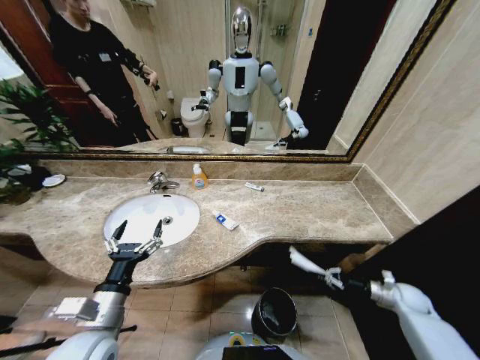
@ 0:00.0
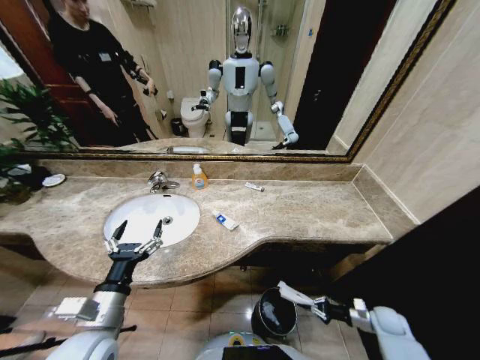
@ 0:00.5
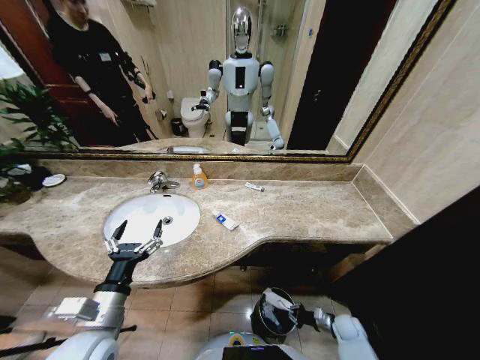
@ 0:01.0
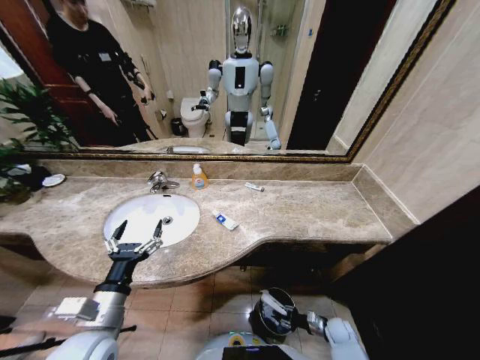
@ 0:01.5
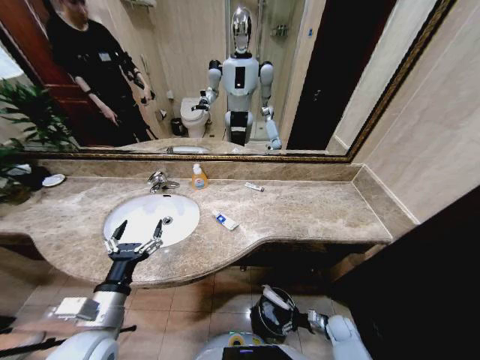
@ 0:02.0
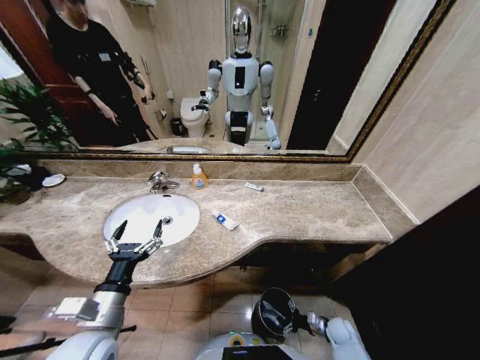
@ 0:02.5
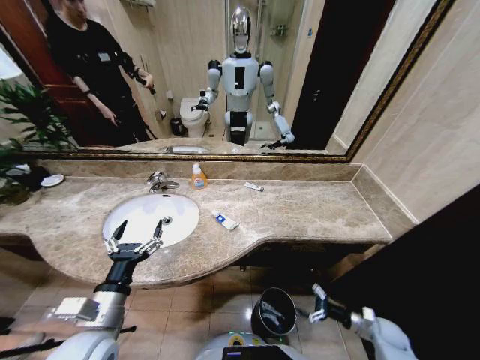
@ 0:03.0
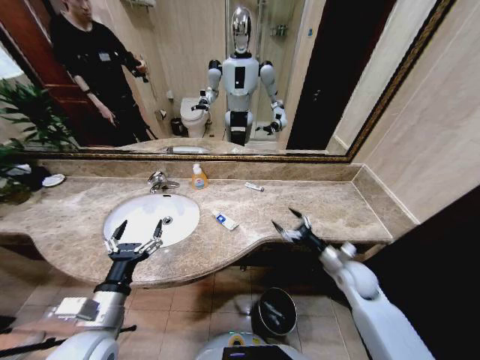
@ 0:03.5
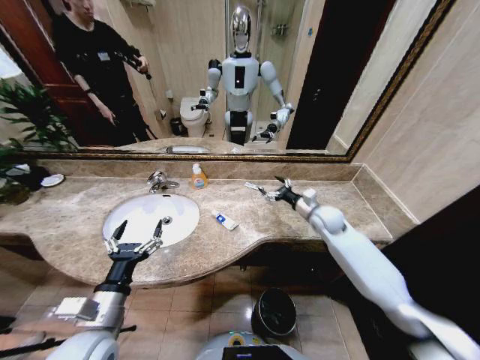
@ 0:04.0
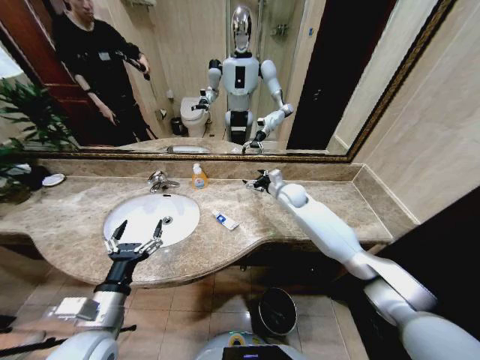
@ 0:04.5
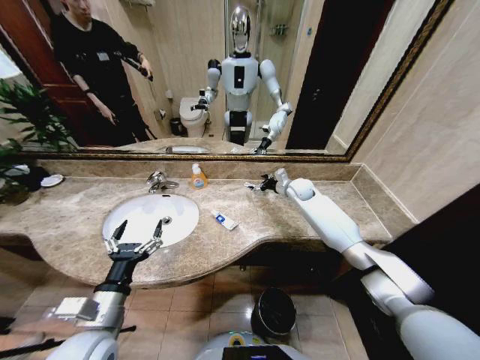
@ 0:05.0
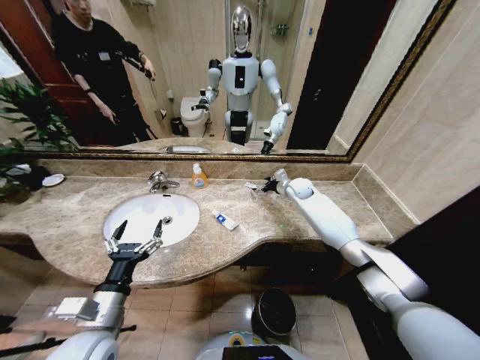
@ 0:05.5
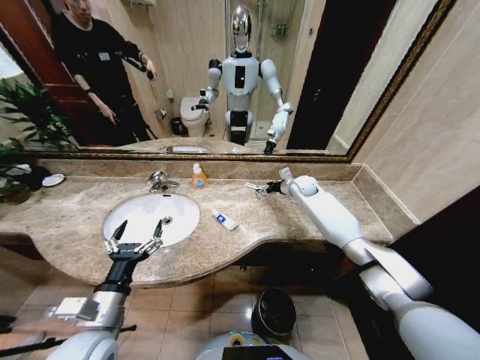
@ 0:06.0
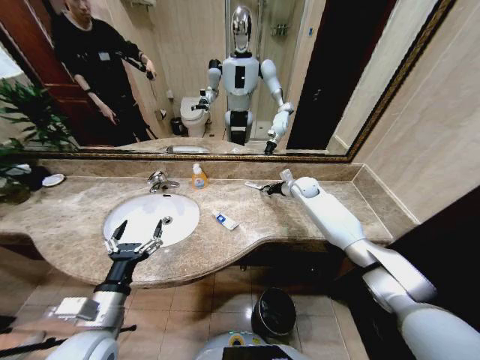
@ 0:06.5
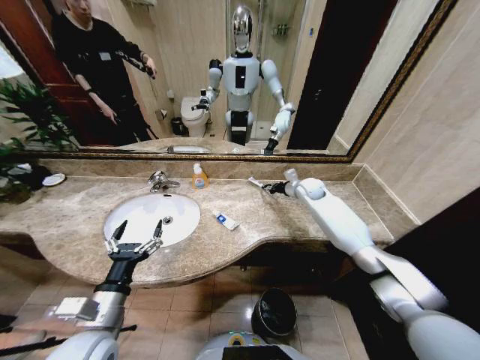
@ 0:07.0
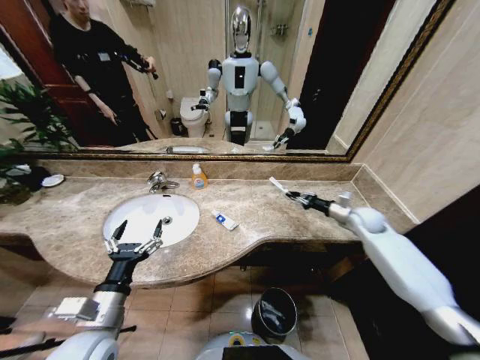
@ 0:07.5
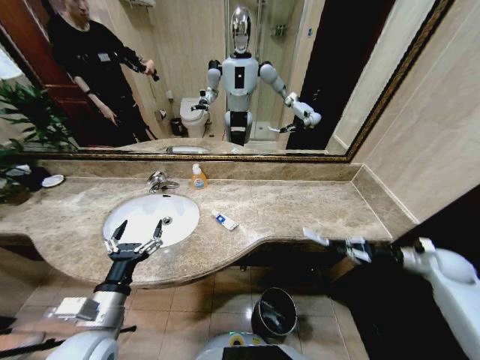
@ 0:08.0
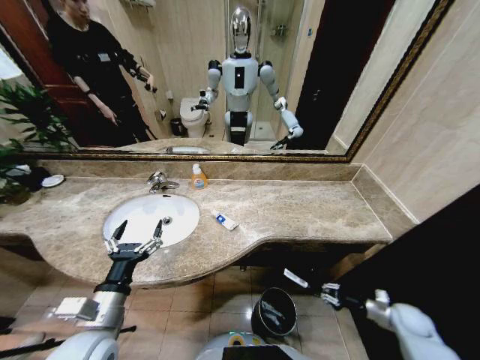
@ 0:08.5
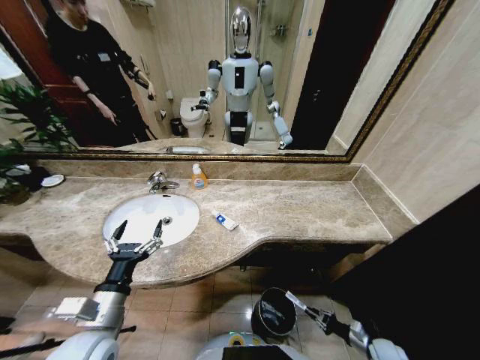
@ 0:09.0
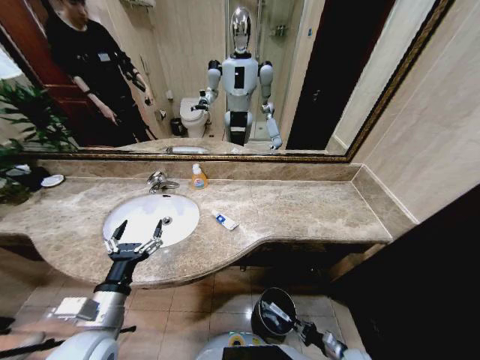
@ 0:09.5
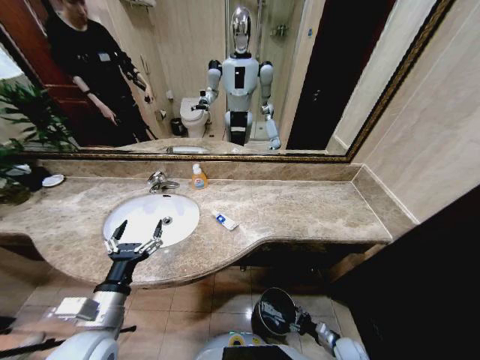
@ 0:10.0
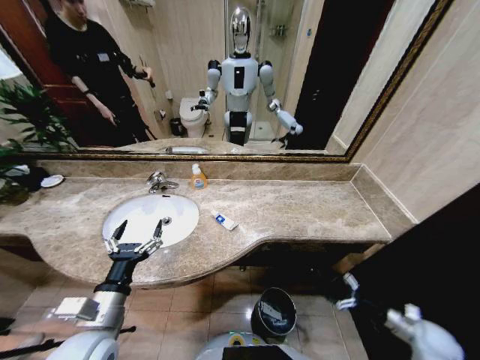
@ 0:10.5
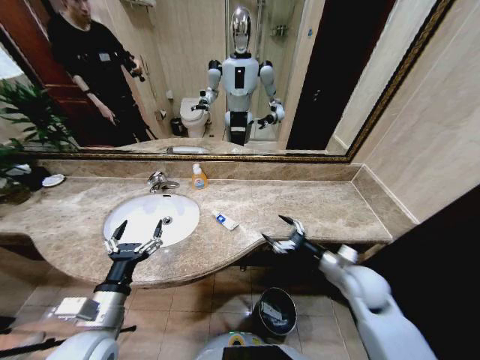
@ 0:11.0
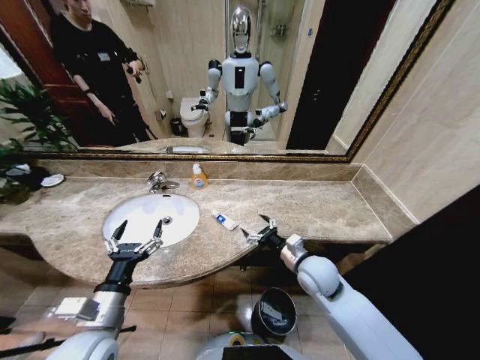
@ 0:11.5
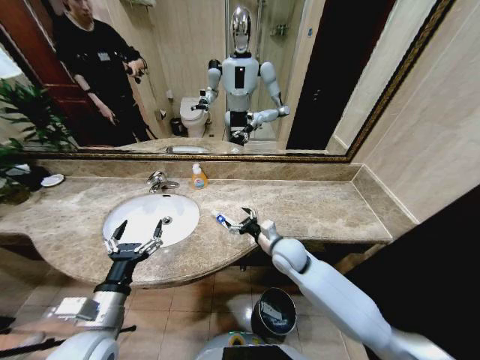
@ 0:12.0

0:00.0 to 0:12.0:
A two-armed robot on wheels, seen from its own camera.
Task of the whole recording: Pick up the trash from the sink and place it in the trash bin.
0:00.0 to 0:02.0: The right gripper goes approximately 25 cm to the left and downward, and opens up.
0:02.0 to 0:04.0: The right gripper shifts some 40 cm upward and forward.
0:04.0 to 0:06.0: The right gripper heads forward, covering approximately 15 cm.
0:06.0 to 0:08.0: The right gripper is displaced to the right and backward by roughly 40 cm, and closes.
0:08.0 to 0:10.0: The right gripper heads downward, to the left and backward, covering approximately 40 cm.
0:10.0 to 0:12.0: The right gripper heads upward, to the left and forward, covering approximately 50 cm, and opens.

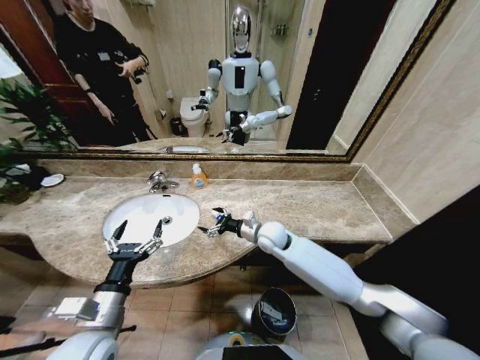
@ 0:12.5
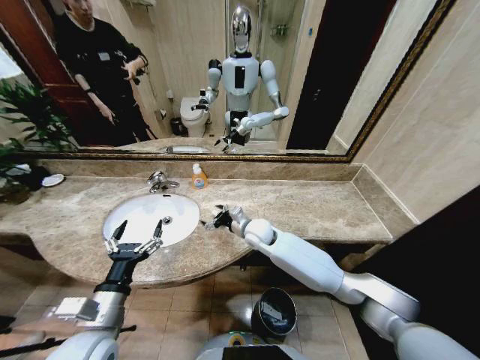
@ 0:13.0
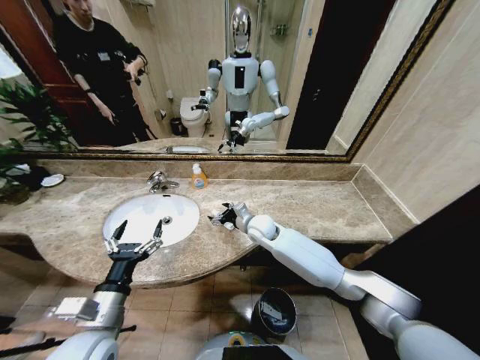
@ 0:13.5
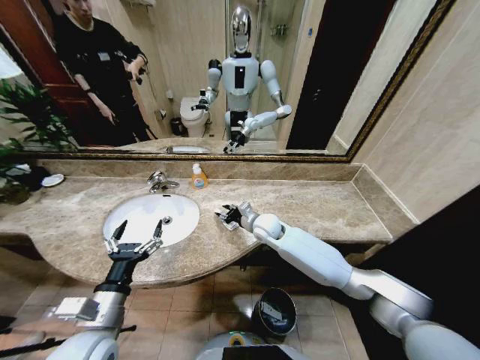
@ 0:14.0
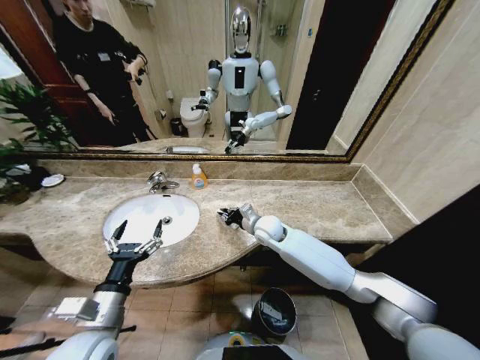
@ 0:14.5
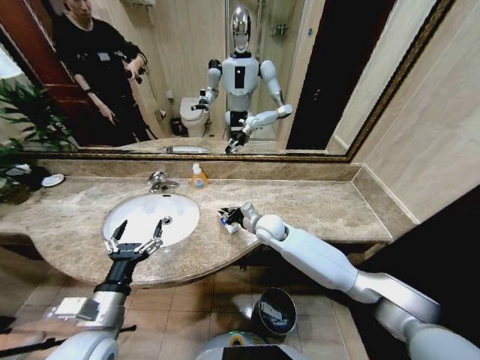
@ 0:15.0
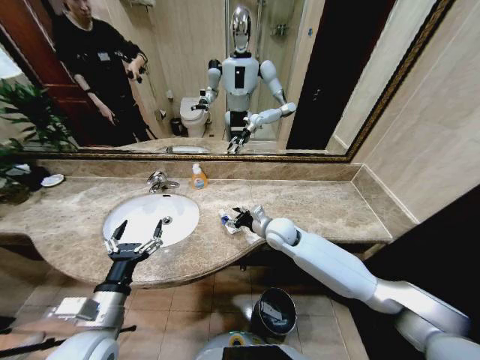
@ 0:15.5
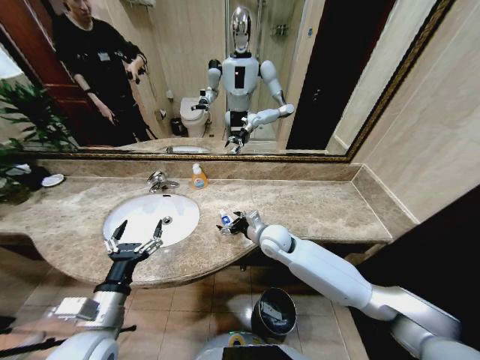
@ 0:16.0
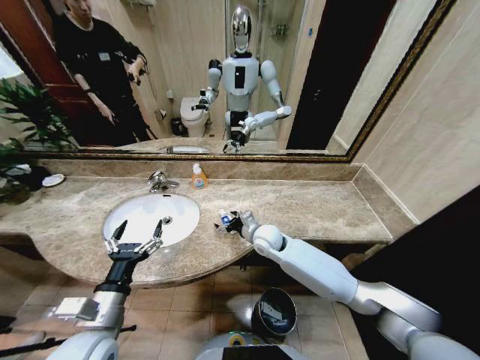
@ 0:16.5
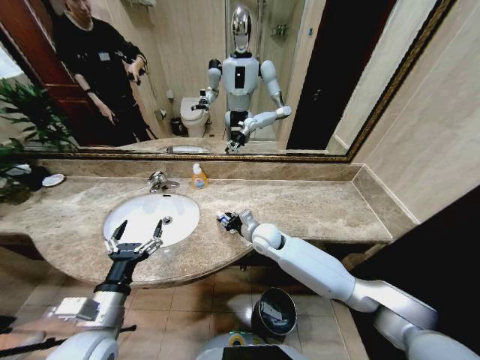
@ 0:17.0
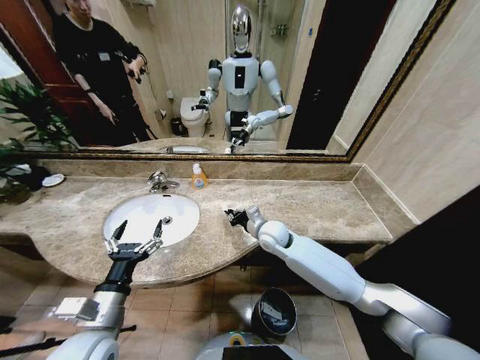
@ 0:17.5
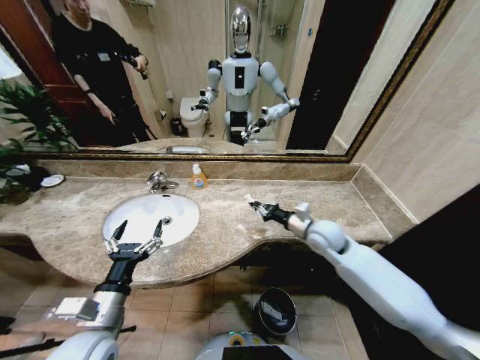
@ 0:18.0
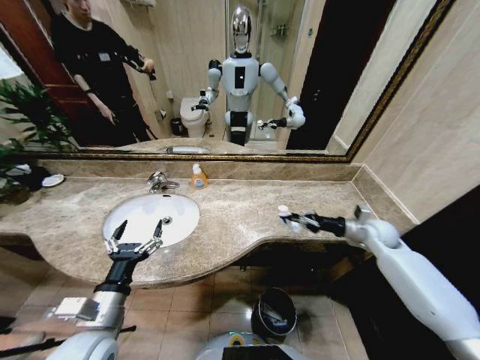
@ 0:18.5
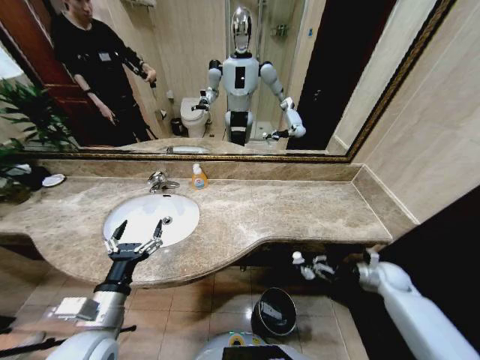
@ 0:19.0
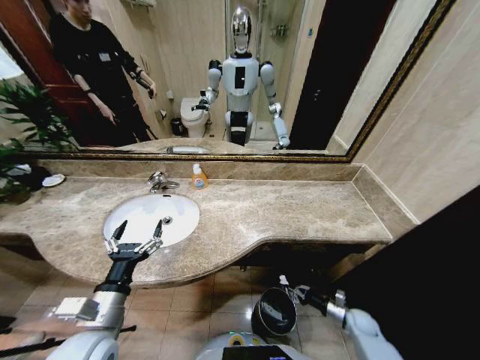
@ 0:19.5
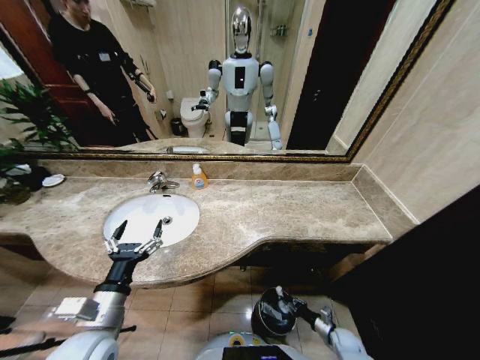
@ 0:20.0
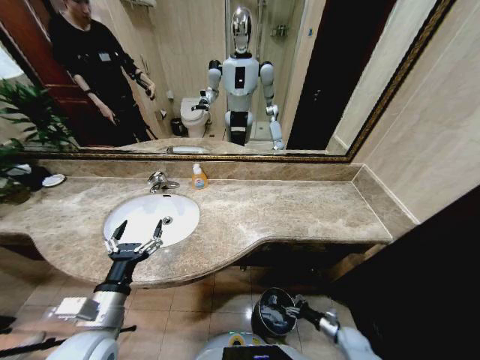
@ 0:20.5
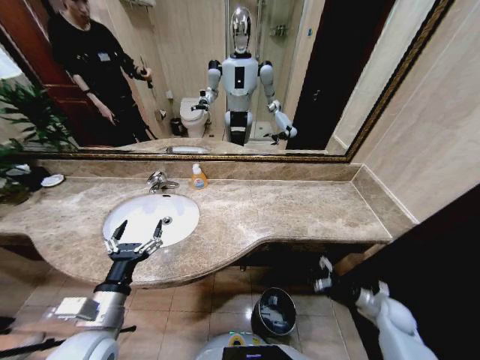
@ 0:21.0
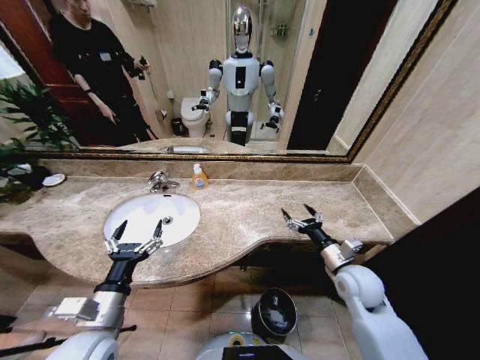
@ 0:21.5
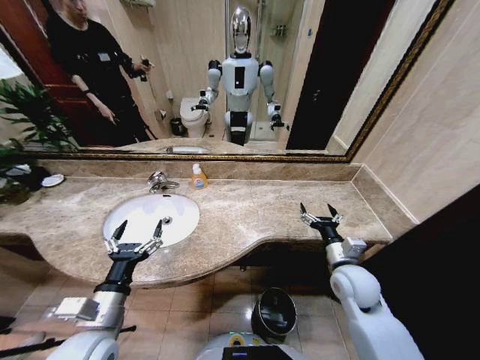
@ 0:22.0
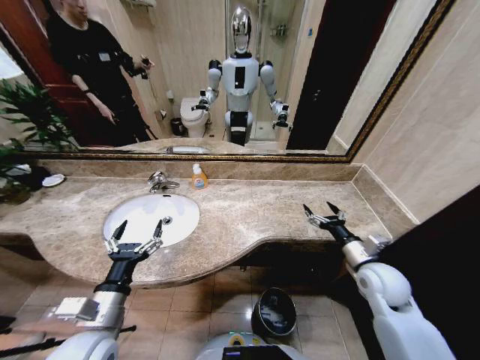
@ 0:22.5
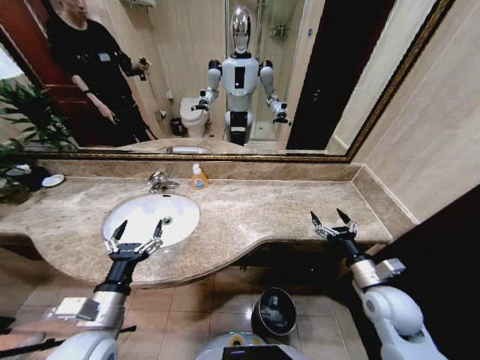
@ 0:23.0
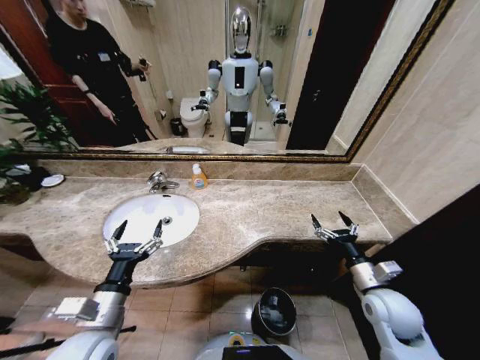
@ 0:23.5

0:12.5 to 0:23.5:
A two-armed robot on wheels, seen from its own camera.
Task of the whole recording: Pick up the trash from the sink and place it in the trash bin.
0:12.5 to 0:14.5: The right gripper closes.
0:14.5 to 0:16.0: The right gripper opens up.
0:16.0 to 0:18.0: The right gripper is displaced to the right by roughly 15 cm, and closes its fingers.
0:18.0 to 0:20.0: The right gripper goes some 40 cm downward and backward.
0:20.0 to 0:21.5: The right gripper shifts roughly 35 cm upward, and opens its fingers.
0:21.5 to 0:23.5: The right gripper shifts approximately 5 cm backward and to the right.

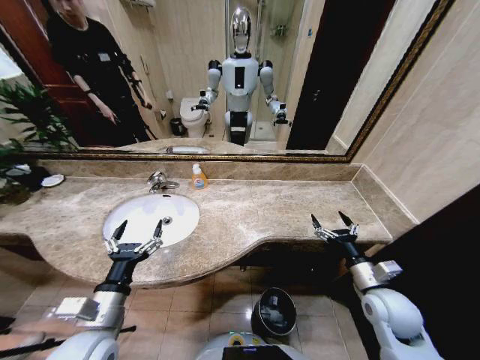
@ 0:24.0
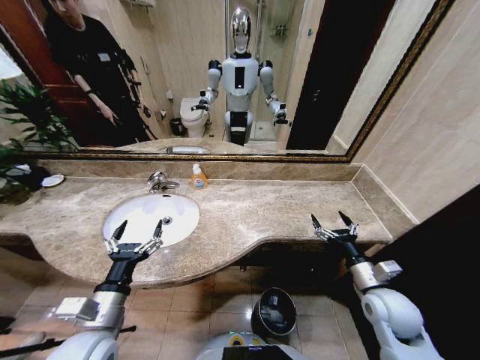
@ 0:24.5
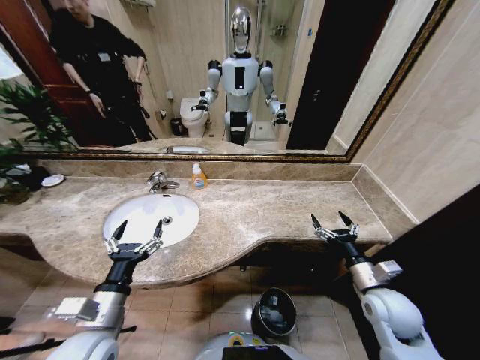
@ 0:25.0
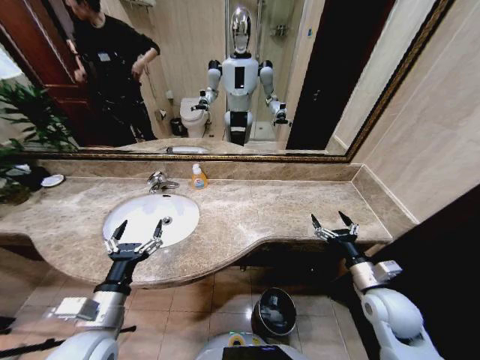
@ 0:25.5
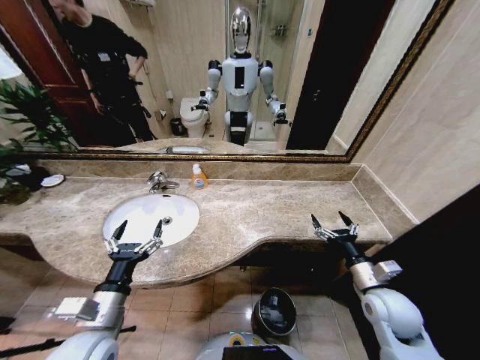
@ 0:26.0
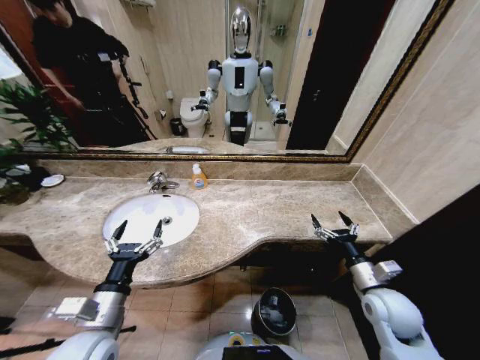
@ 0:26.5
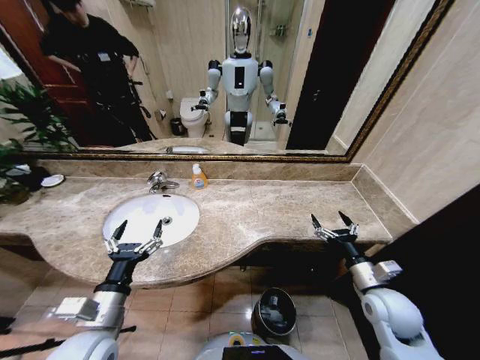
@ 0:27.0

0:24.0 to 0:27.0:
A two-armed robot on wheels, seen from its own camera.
Task of the whole recording: Pick up the trash from the sink and place it in the trash bin.
0:24.0 to 0:27.0: Neither gripper changes place.
